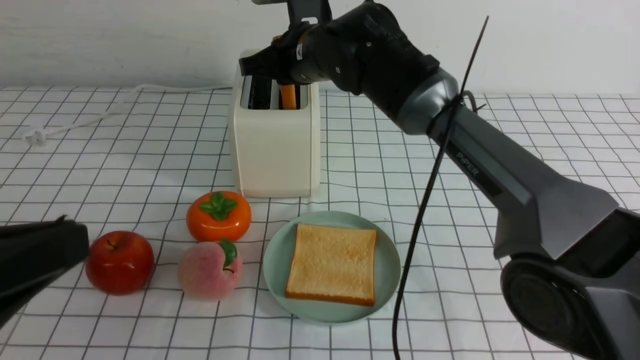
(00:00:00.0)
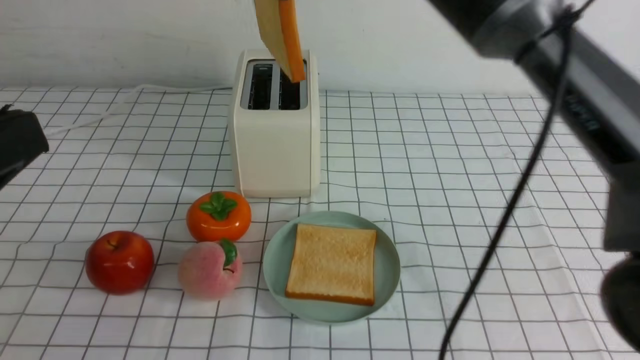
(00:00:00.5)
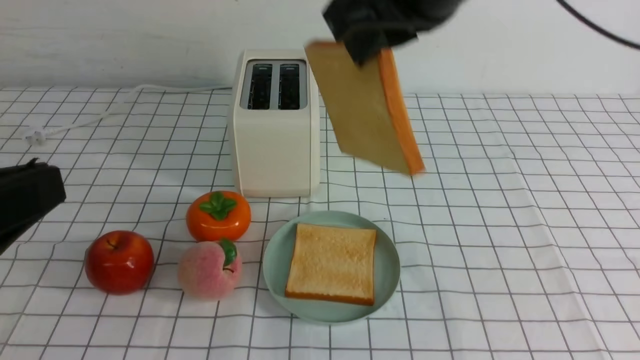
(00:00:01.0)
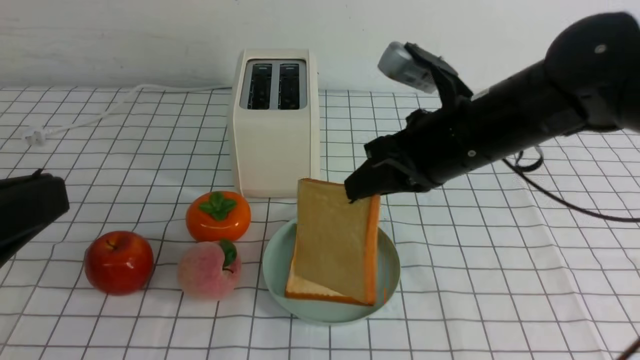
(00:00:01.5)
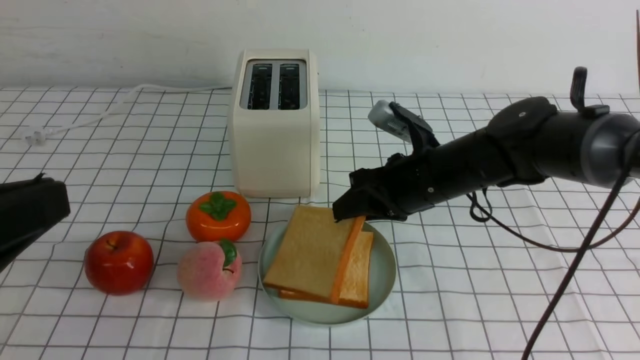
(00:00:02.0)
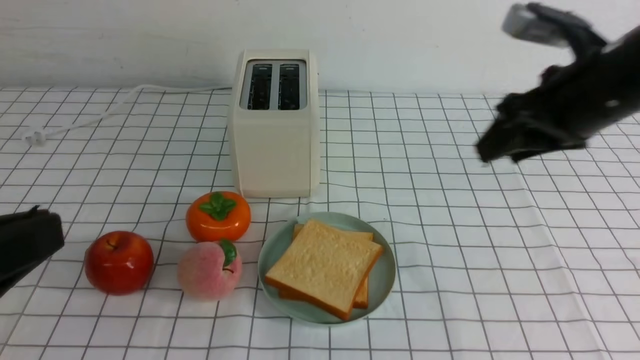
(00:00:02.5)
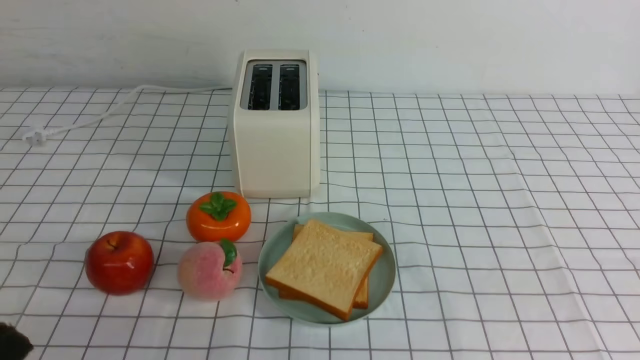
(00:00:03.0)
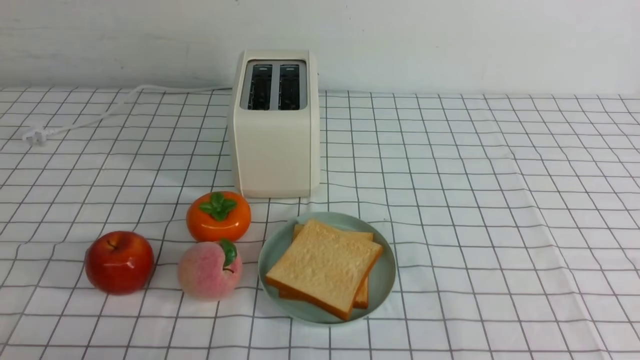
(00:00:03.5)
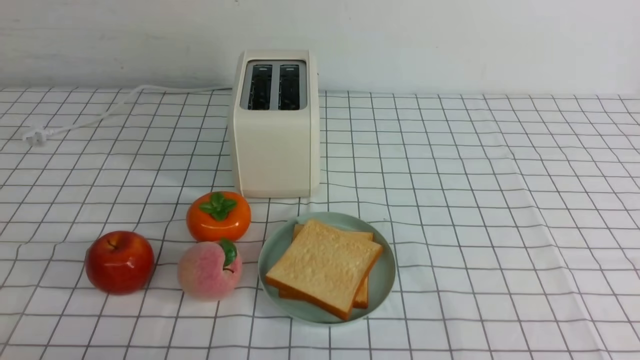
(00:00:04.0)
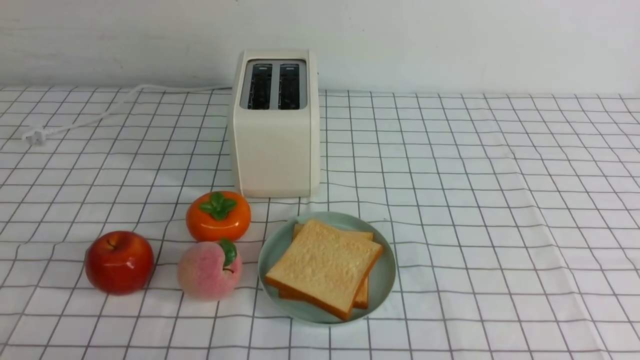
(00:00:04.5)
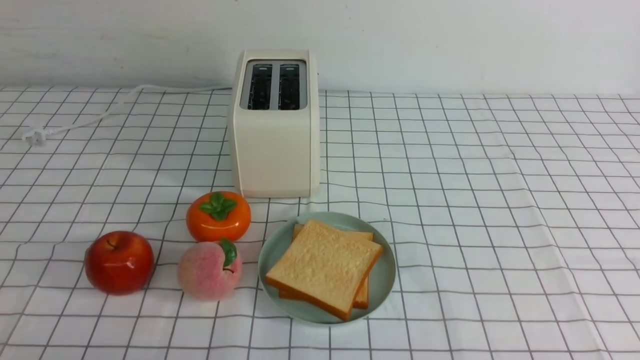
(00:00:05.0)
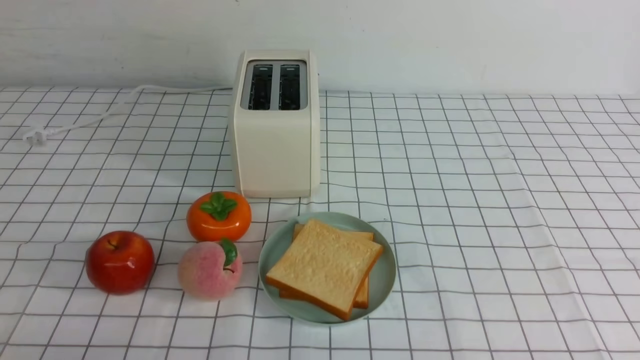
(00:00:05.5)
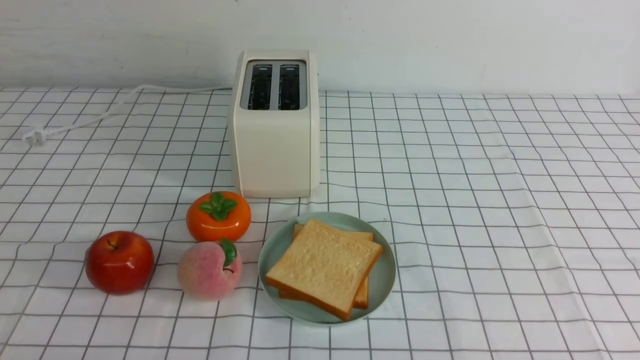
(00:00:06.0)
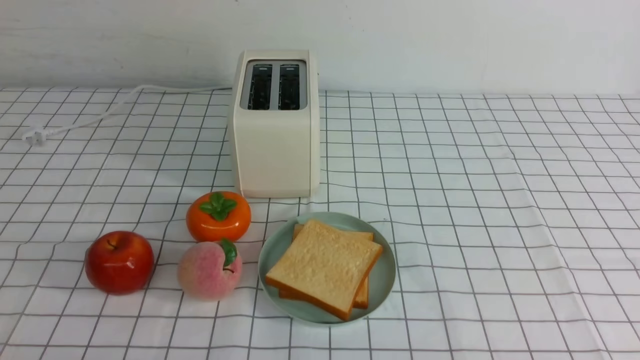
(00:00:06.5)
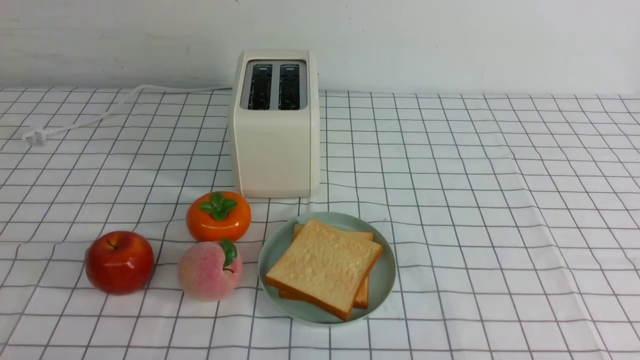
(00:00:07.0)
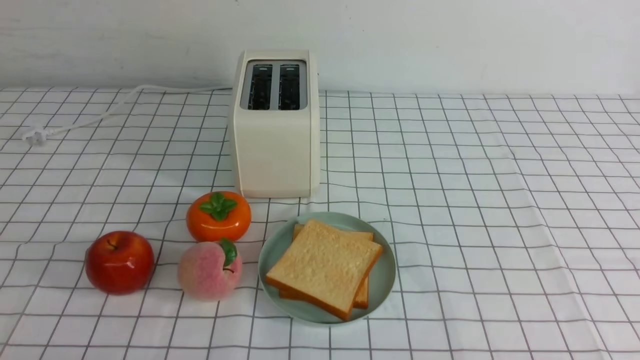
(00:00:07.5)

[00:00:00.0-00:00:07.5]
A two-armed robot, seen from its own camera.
Task of the whole recording: take toasted bread from bread machine on white checkered table place on plate.
Step, 00:00:00.5 to 00:00:02.0: use the right arm to put a slice of bread into the plate.
00:00:00.0 to 00:00:02.0: The right gripper travels to the right, downward and backward by some 20 cm, and opens up.
00:00:02.0 to 00:00:04.0: The right gripper moves backward and to the right, some 35 cm, and closes its fingers. The left gripper is displaced downward by roughly 15 cm.
